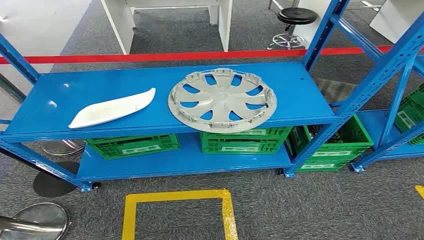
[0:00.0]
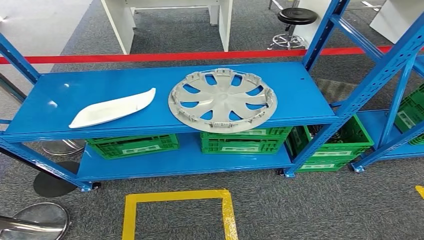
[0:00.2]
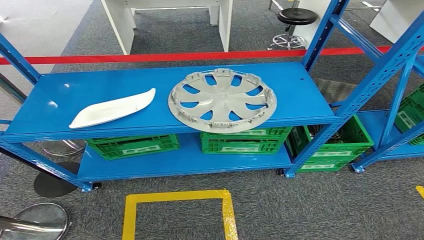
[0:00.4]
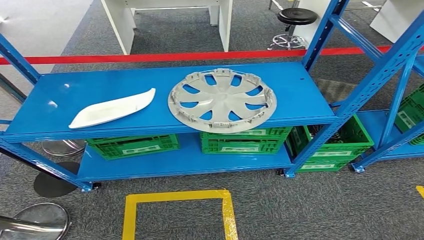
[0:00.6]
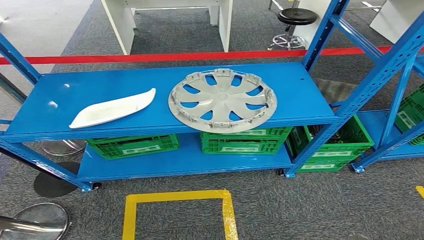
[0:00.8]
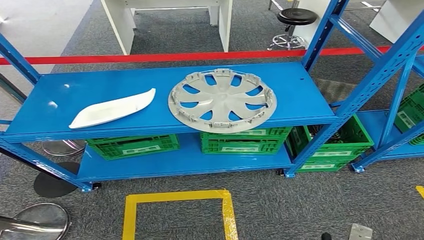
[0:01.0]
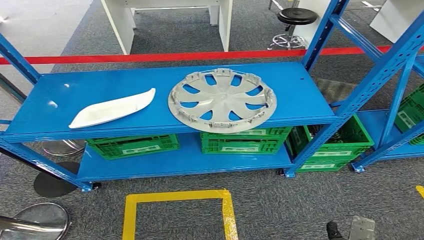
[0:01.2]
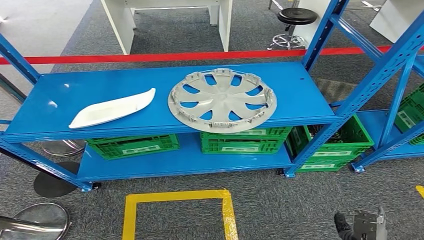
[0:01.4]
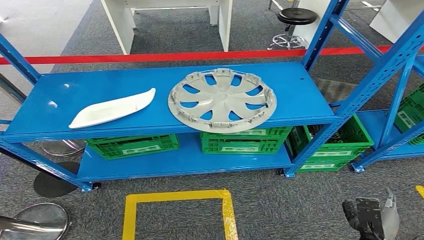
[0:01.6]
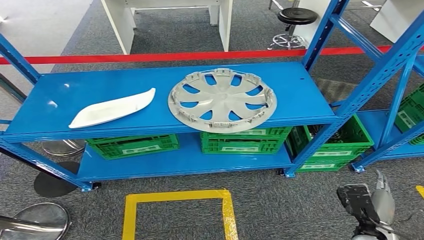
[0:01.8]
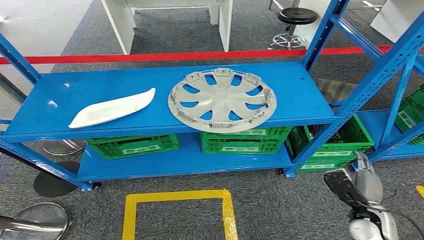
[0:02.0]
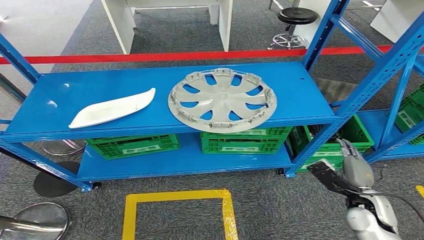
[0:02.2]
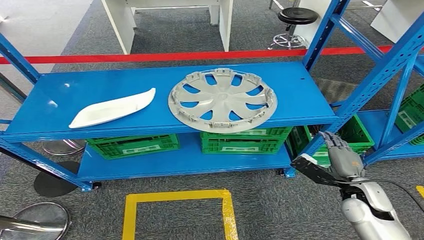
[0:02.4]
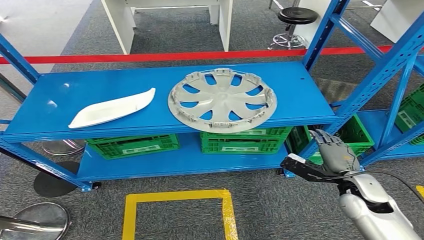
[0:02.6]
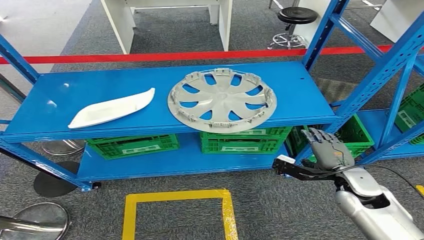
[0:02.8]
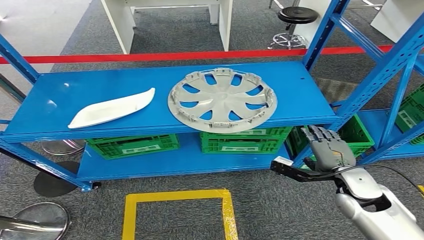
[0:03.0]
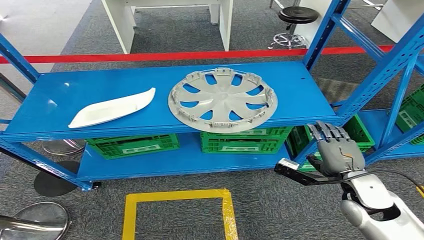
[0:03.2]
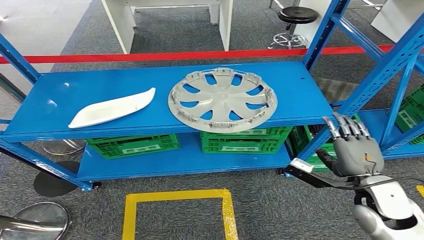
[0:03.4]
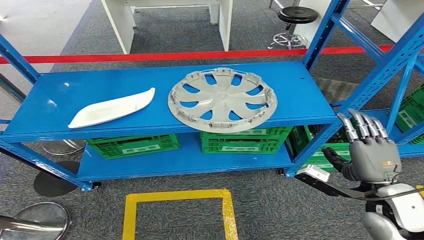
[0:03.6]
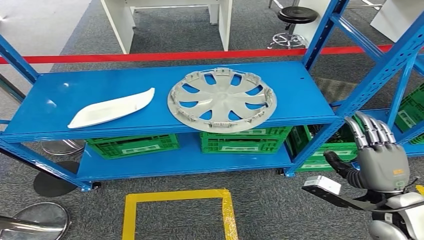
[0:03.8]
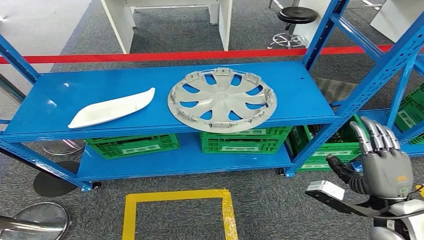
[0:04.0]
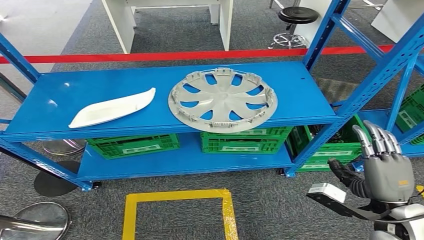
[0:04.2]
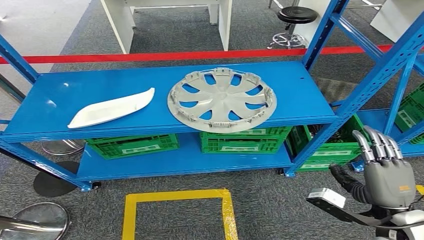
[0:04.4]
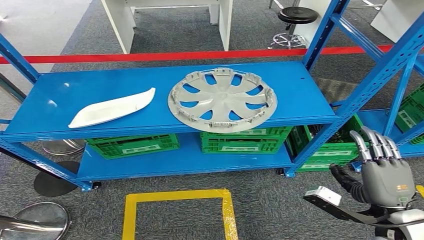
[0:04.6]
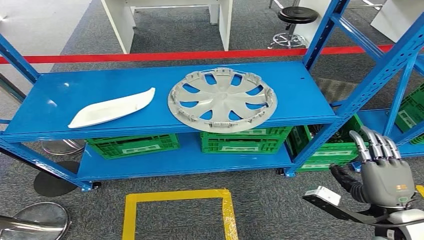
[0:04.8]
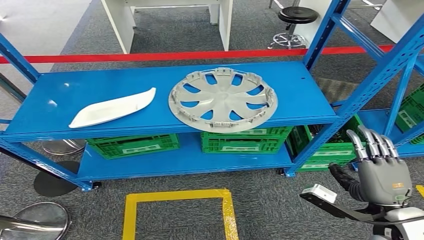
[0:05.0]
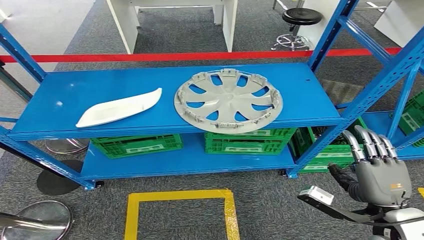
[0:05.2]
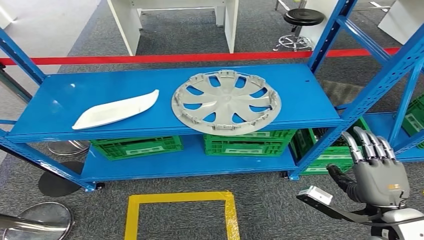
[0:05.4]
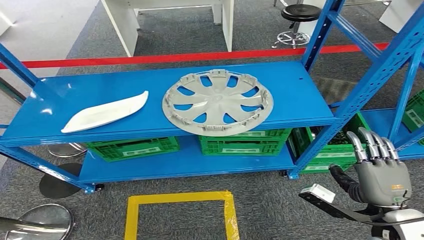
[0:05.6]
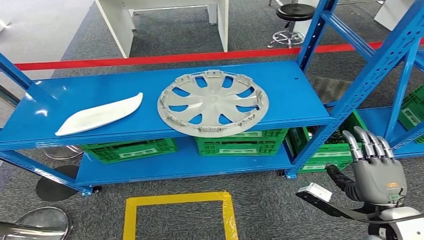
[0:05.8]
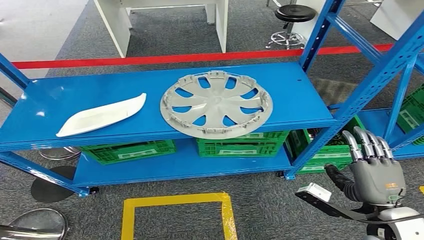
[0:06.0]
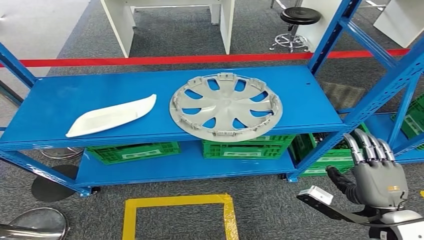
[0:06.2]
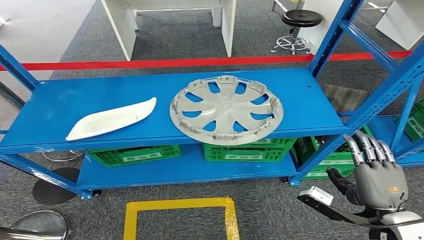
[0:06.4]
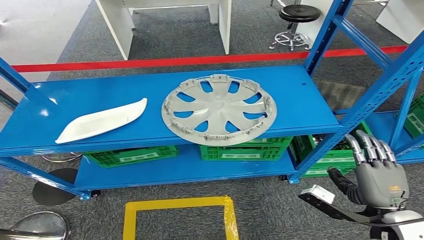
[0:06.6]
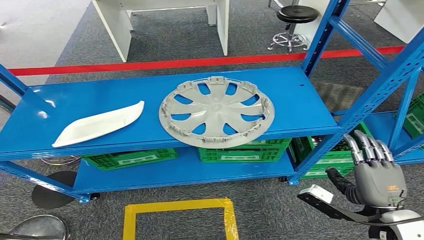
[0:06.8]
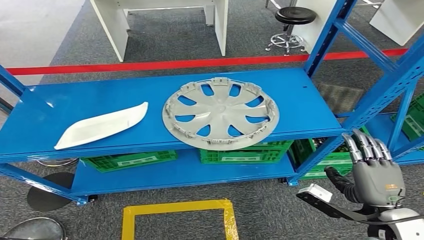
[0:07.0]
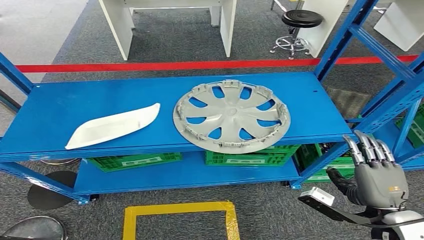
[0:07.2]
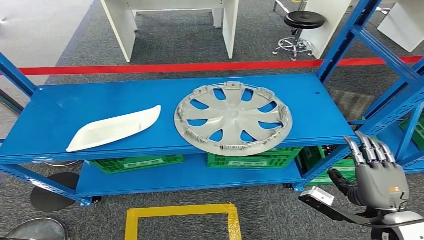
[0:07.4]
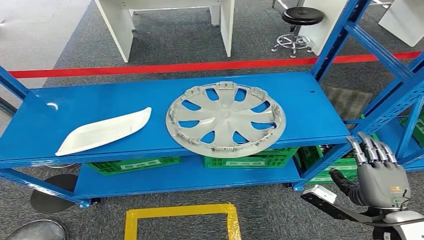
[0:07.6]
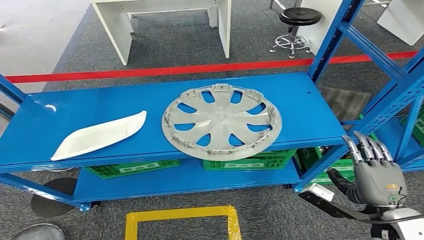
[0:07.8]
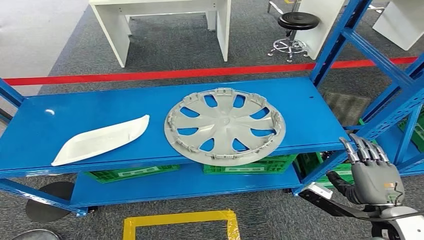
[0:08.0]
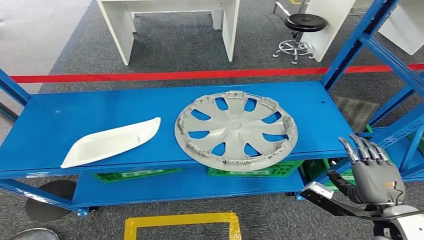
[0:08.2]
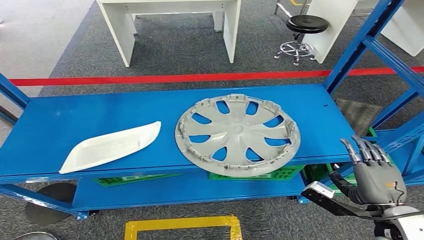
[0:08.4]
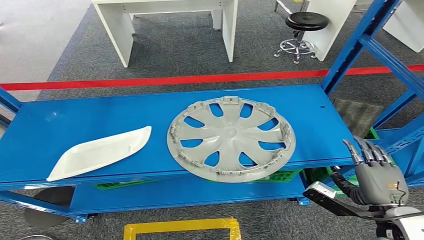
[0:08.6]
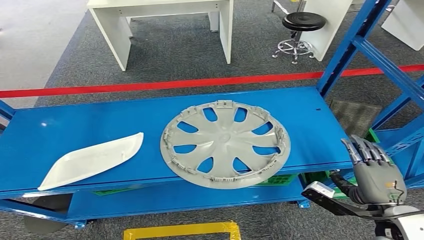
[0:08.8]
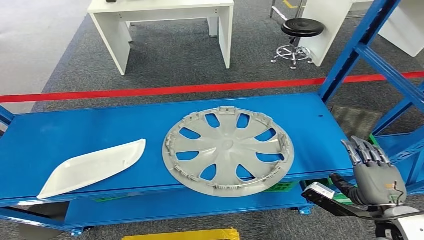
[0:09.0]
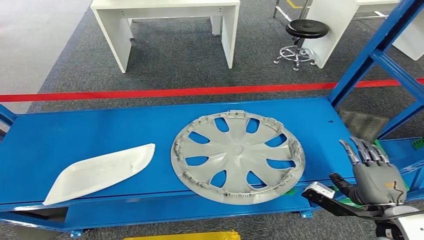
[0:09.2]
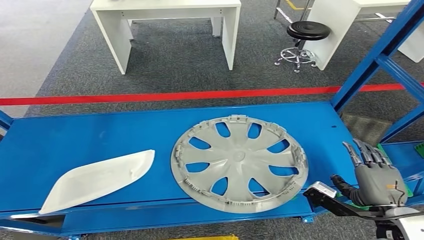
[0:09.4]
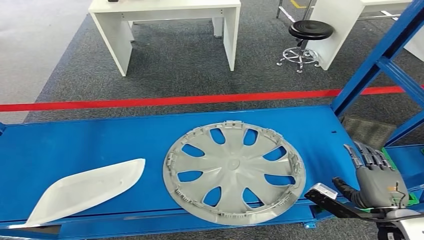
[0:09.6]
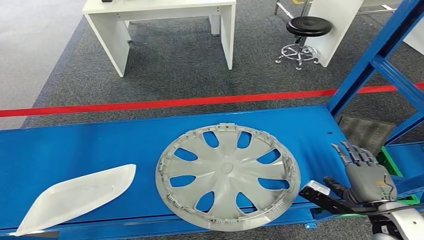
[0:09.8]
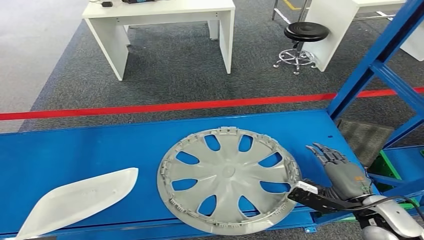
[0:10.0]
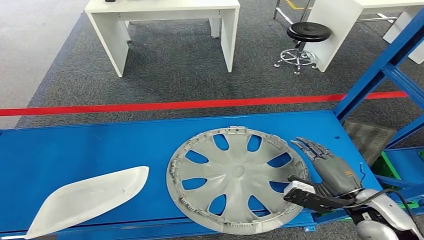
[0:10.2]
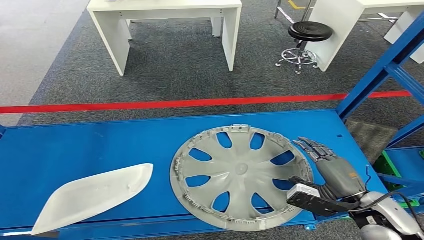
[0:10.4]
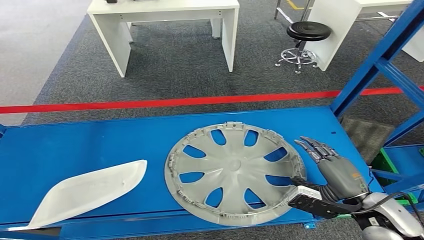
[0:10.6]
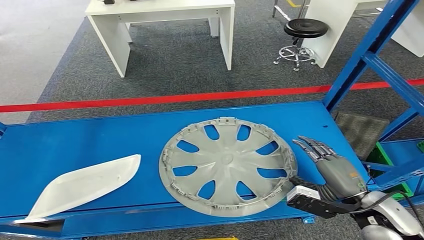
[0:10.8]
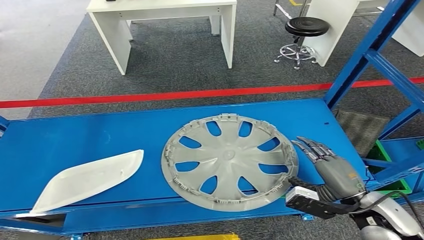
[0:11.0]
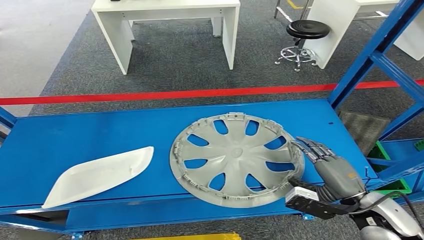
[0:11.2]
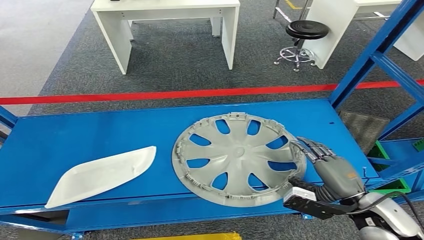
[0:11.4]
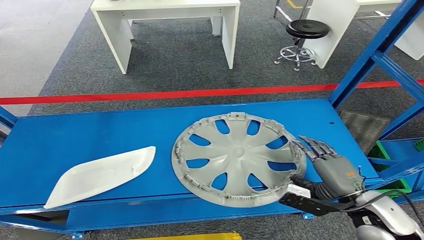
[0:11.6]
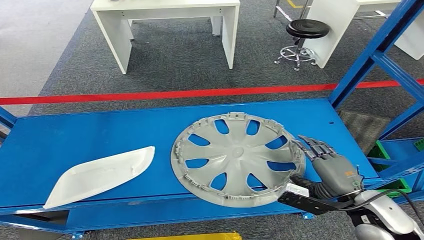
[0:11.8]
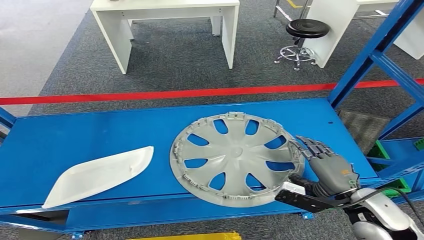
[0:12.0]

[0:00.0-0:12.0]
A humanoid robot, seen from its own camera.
0:01.6 to 0:03.0: The right hand shifts approximately 20 cm upward and forward.
0:03.0 to 0:04.4: The right hand moves backward, some 10 cm.

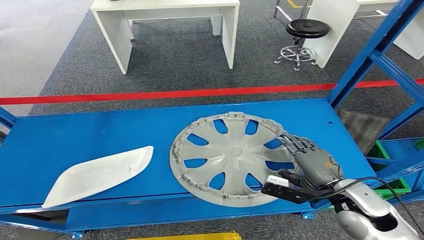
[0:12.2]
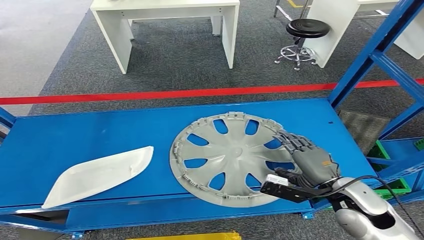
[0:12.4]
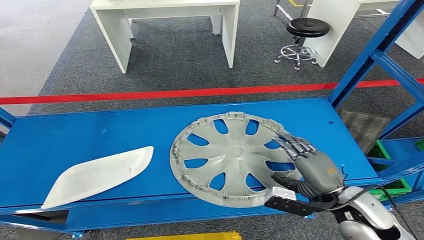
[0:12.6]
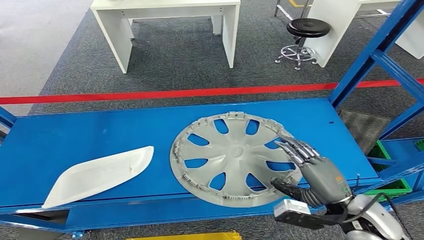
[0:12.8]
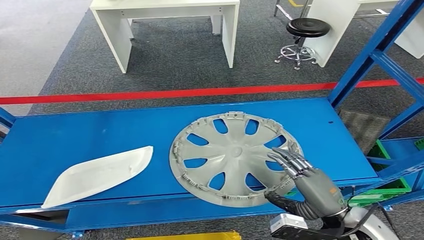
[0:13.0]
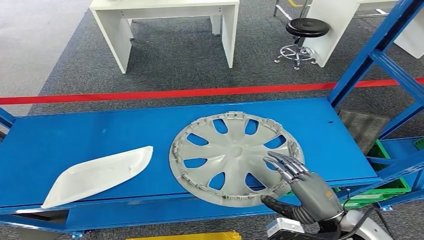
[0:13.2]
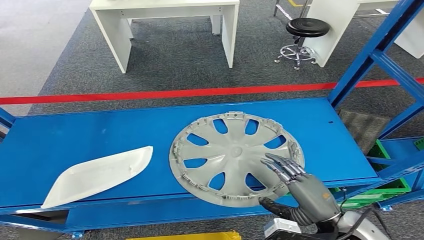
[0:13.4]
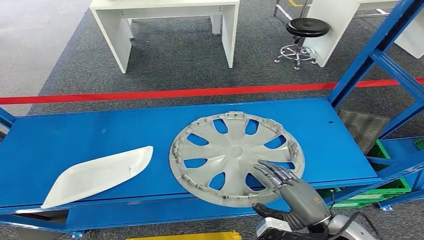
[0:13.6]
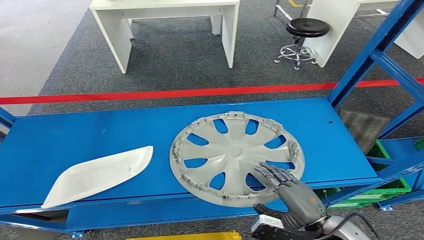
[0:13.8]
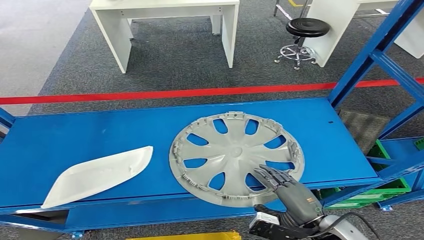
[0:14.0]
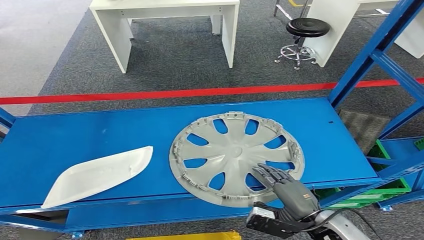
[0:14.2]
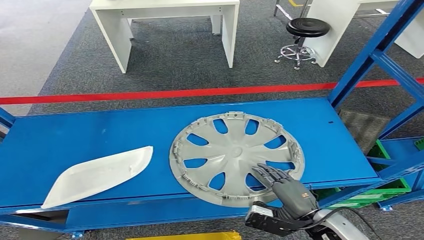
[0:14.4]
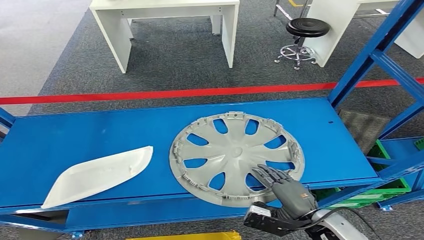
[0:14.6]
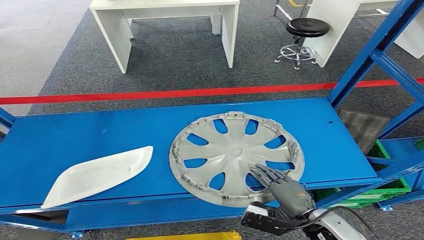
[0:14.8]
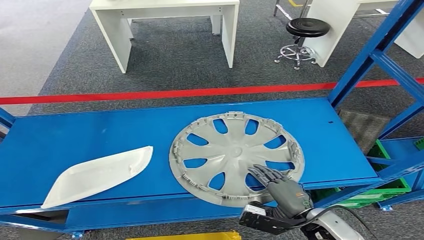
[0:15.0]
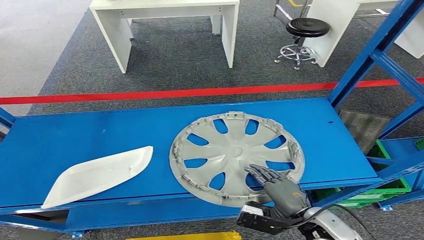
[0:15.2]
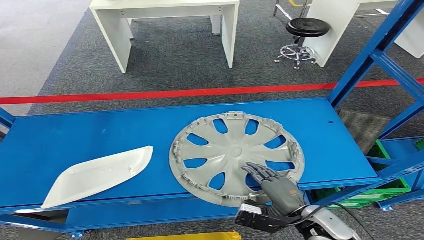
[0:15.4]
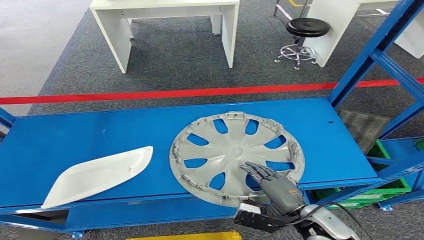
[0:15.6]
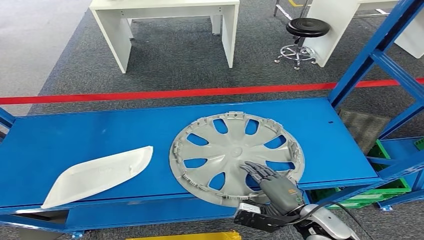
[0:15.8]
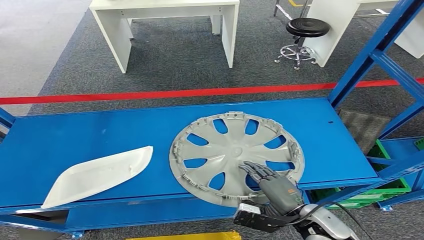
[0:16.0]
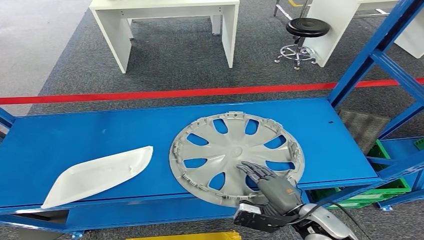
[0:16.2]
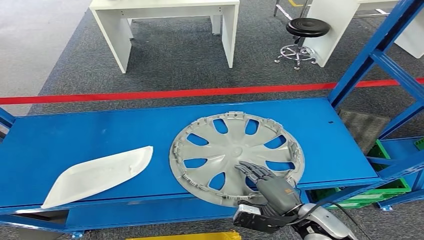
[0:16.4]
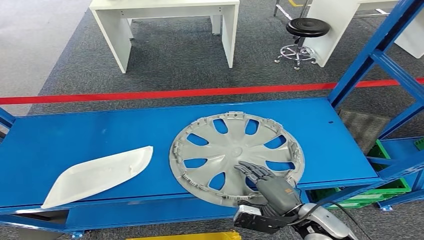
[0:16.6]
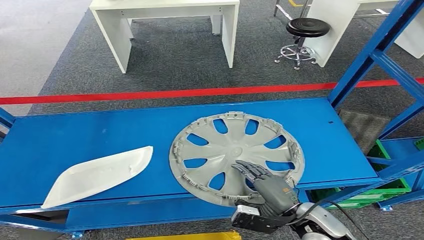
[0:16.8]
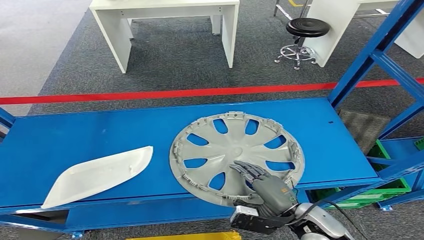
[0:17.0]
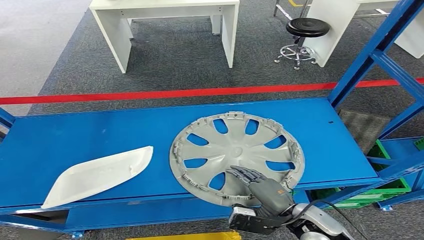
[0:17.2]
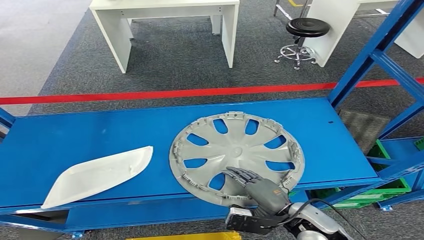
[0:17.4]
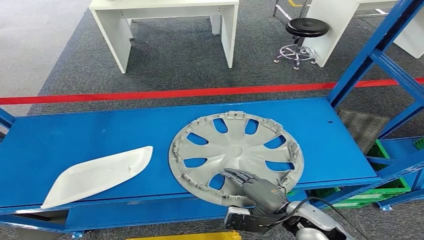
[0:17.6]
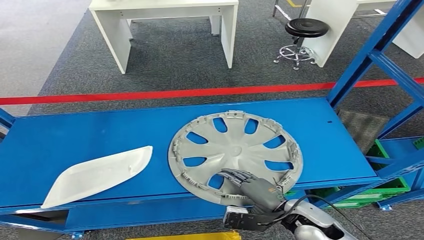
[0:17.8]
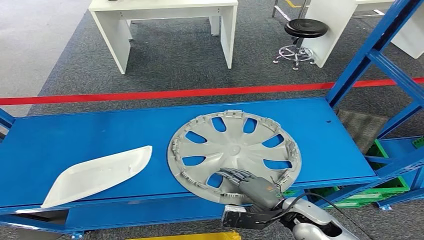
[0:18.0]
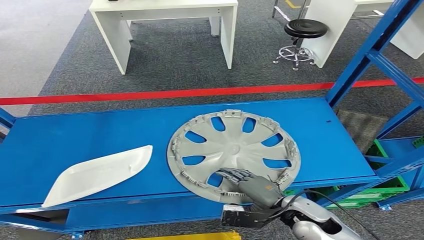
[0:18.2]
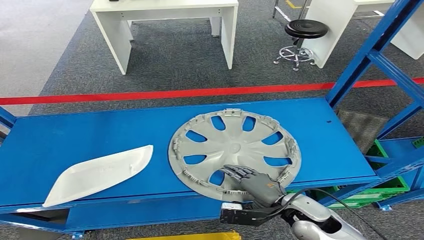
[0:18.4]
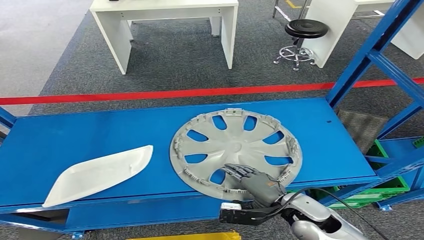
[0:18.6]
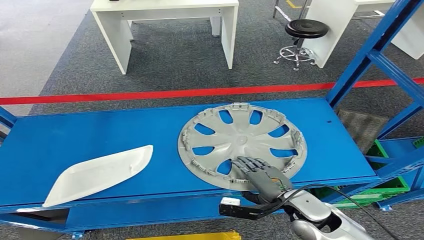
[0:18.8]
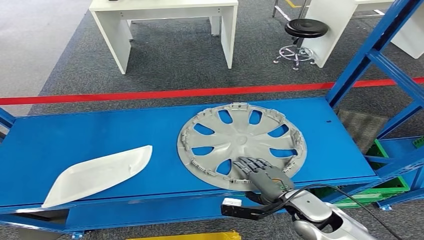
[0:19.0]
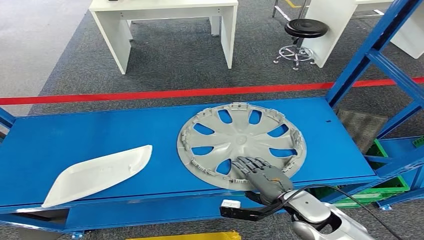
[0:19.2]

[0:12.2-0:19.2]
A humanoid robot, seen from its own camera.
0:12.2 to 0:13.6: The right hand travels backward by some 10 cm.
0:13.6 to 0:15.0: The right hand changes place by roughly 5 cm.
0:15.0 to 0:17.8: The hands stay close to where they were, moving slightly.
